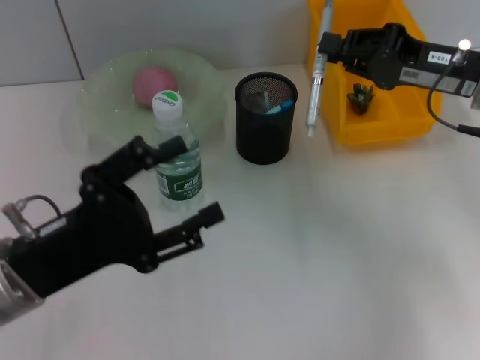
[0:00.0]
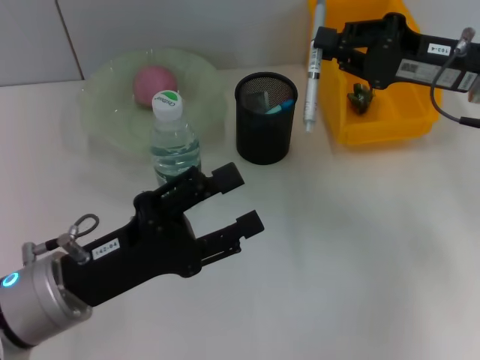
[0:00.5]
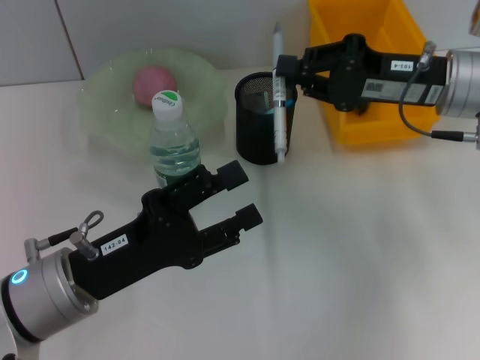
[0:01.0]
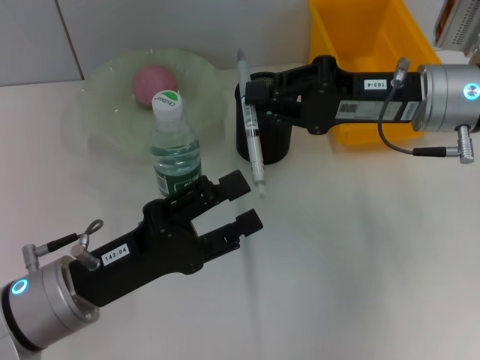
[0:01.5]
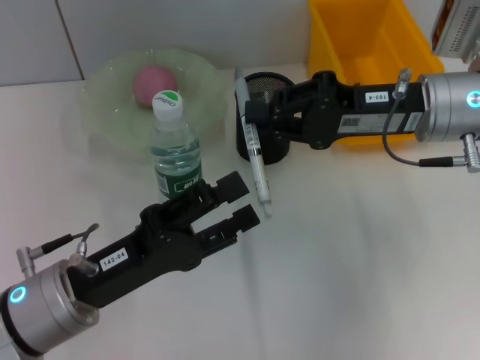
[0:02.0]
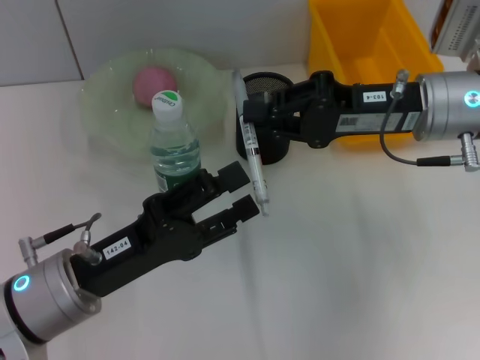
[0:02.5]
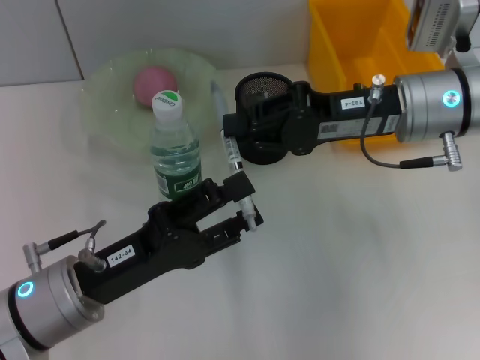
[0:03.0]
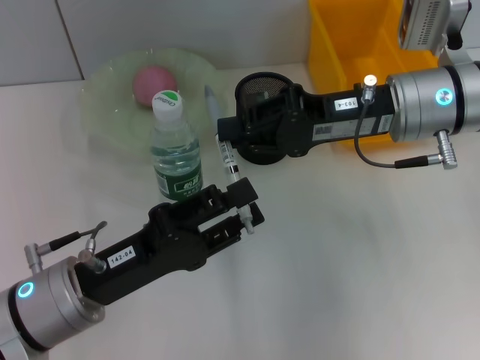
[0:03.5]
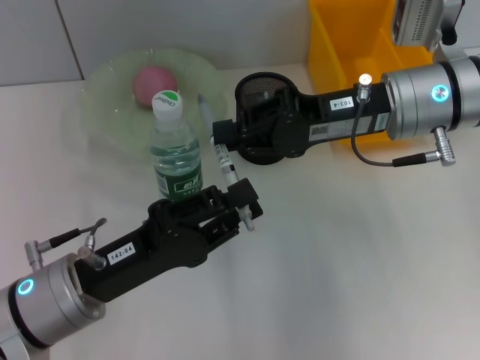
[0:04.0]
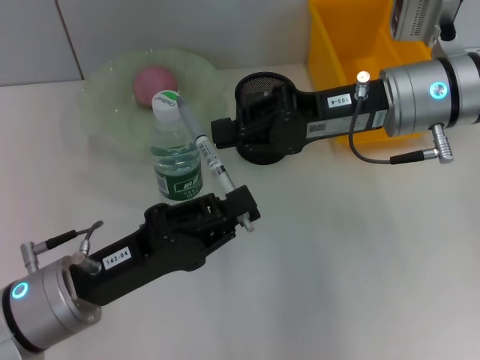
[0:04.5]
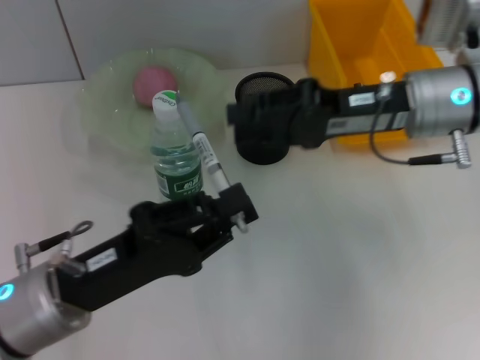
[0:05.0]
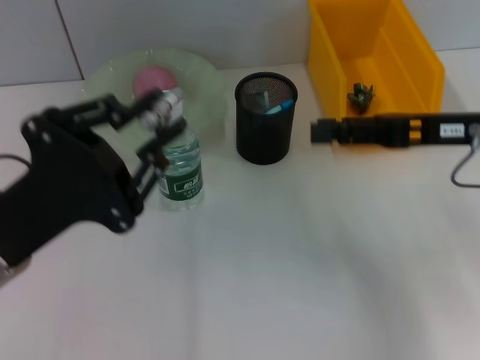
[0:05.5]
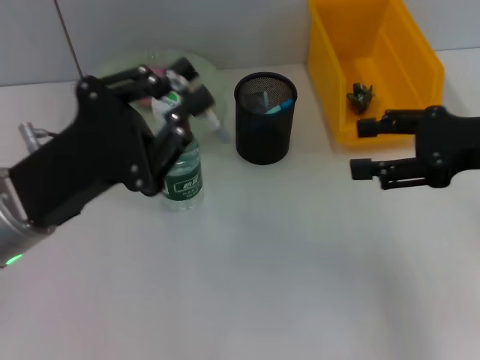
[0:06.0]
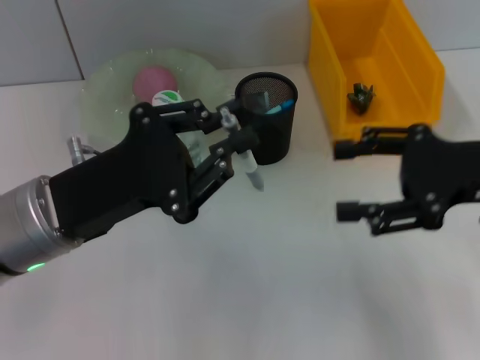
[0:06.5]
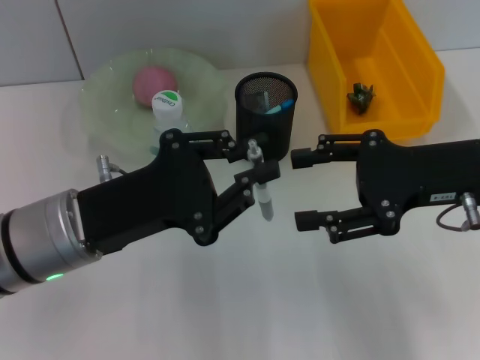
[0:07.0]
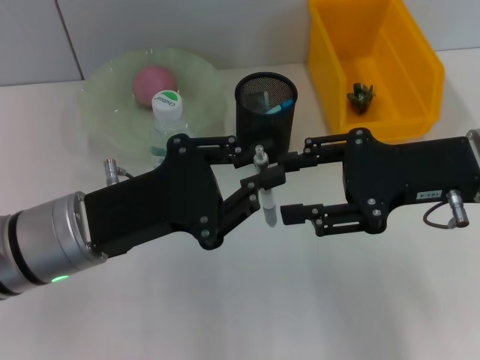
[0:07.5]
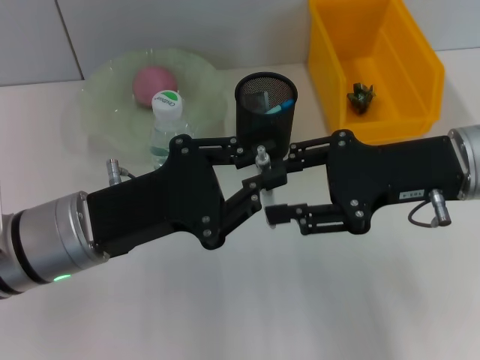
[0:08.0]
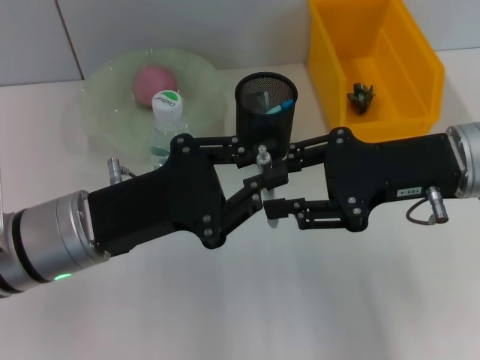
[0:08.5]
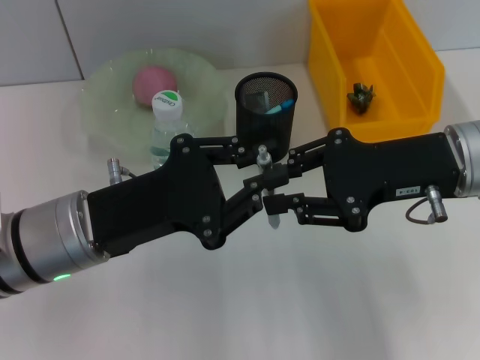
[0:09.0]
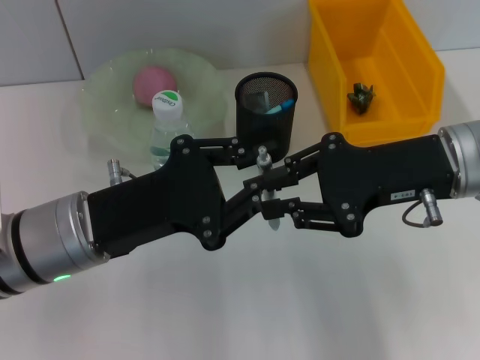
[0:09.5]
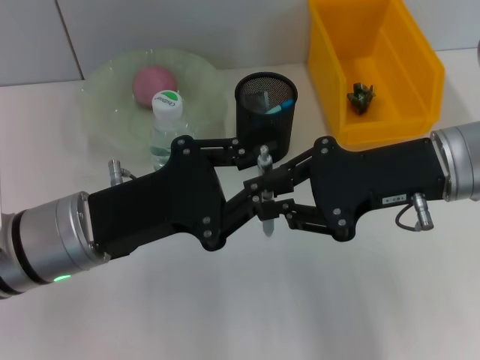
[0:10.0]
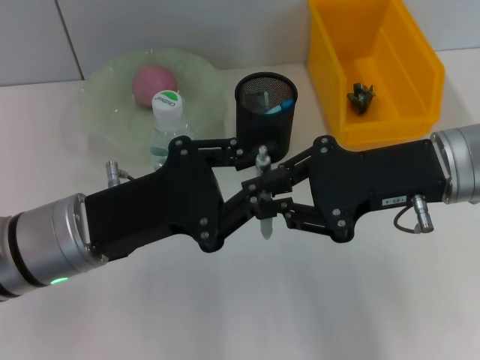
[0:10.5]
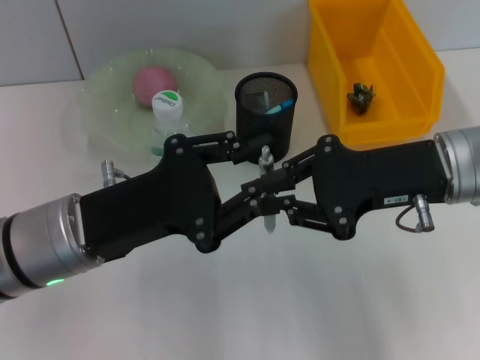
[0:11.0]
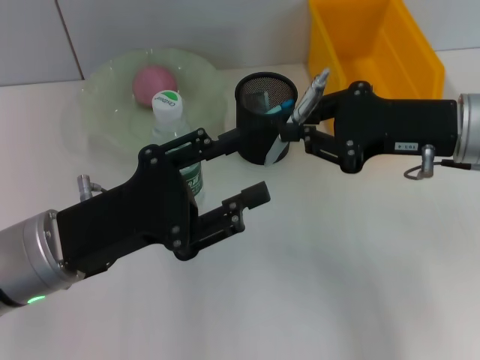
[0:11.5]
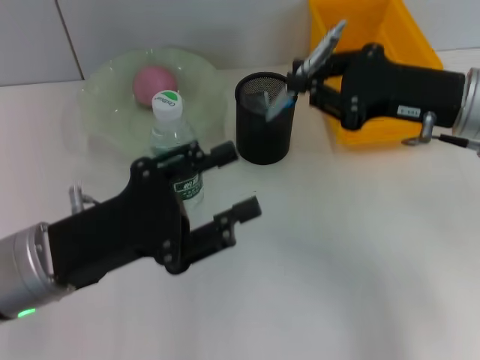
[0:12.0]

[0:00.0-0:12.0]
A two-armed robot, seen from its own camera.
Step, 0:00.0 to 0:04.5: Pass the gray spring-action pen from the right hand to the left hand.
Step, 0:05.0 to 0:11.0: Pass the gray spring-action pen from the left hand to the right hand.
0:00.0 to 0:02.0: The right gripper heads to the left, covering some 5 cm.
0:02.0 to 0:04.0: The left gripper closes.
0:04.0 to 0:06.0: The left gripper shifts roughly 5 cm upward. The right gripper travels to the right and backward by approximately 15 cm, and opens up.
0:06.0 to 0:08.0: The right gripper goes approximately 10 cm to the left.
0:08.0 to 0:10.0: The right gripper closes its fingers.
0:10.0 to 0:12.0: The left gripper opens.

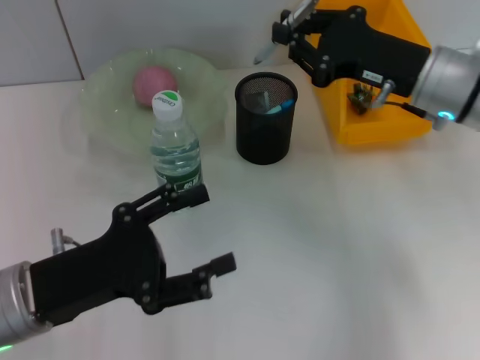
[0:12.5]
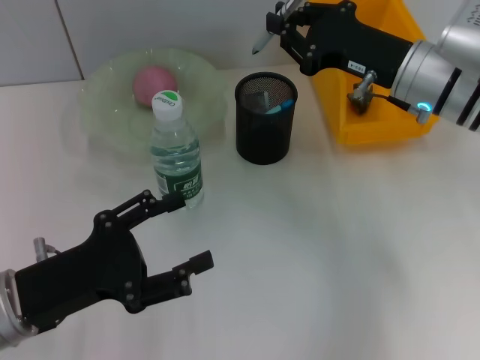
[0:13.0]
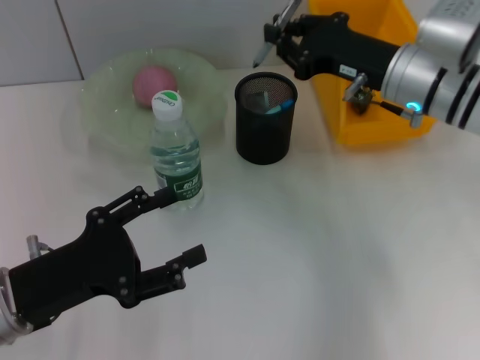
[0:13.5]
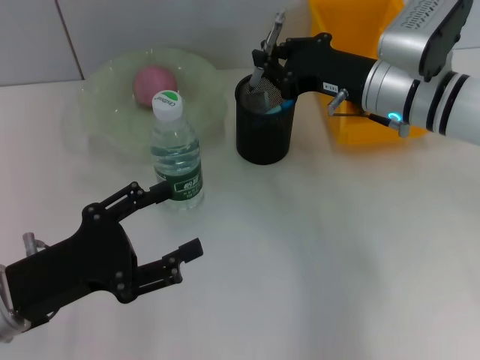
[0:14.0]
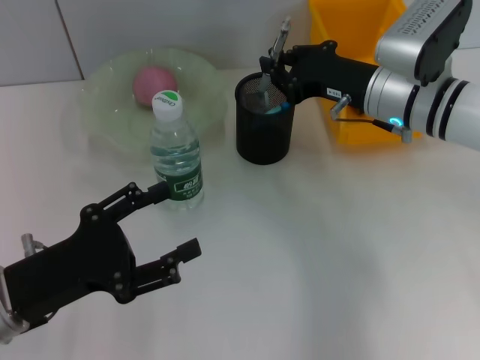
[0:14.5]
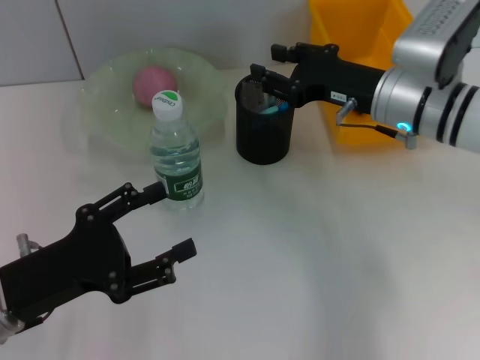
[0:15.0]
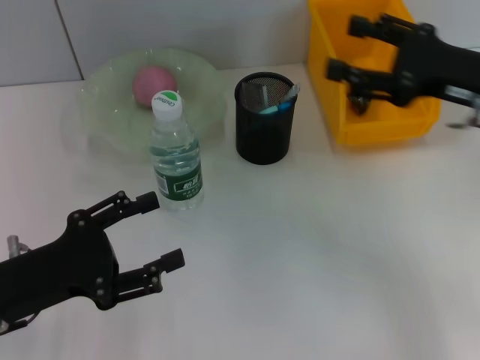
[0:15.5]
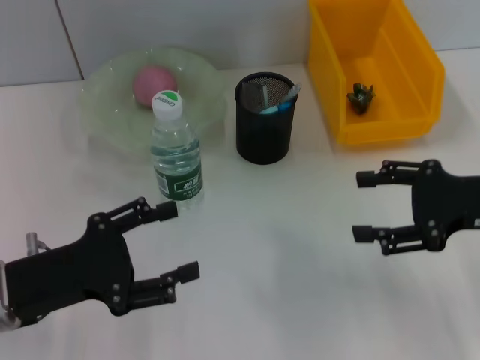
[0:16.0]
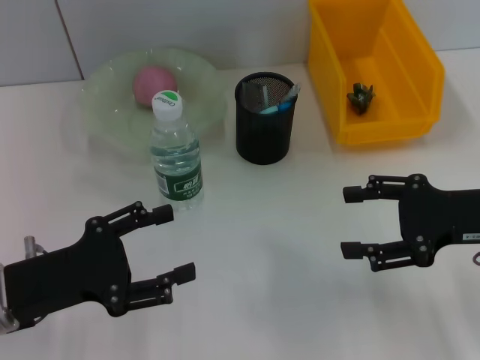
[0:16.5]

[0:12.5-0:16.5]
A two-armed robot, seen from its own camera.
Step, 0:12.5 to 0:15.0: Place the gray spring-action pen into the pen holder with the right hand.
0:12.5 to 0:14.5: The right gripper ends up about 5 cm from where it was.
0:14.5 to 0:16.5: The right gripper is displaced backward and to the right by some 15 cm, and opens.

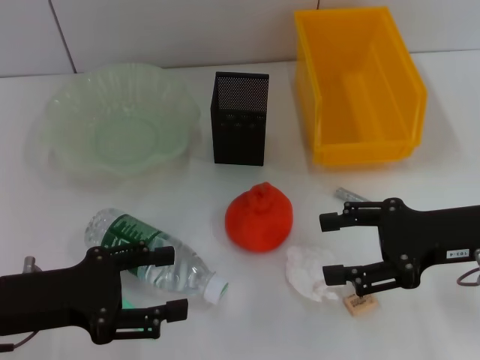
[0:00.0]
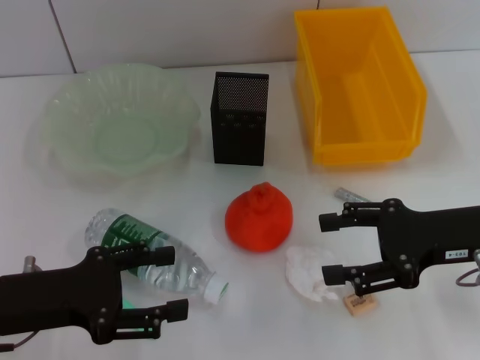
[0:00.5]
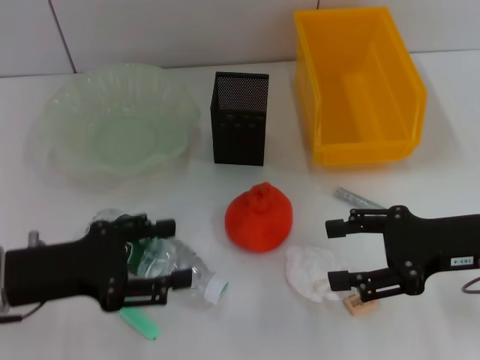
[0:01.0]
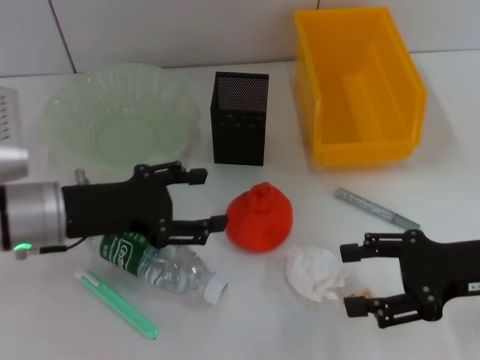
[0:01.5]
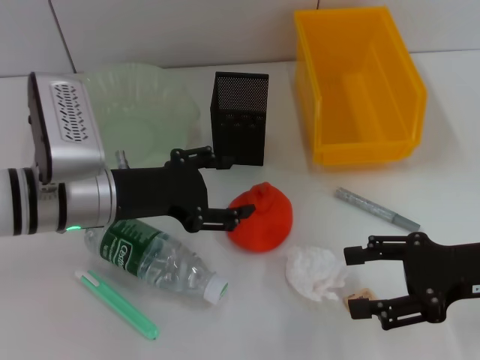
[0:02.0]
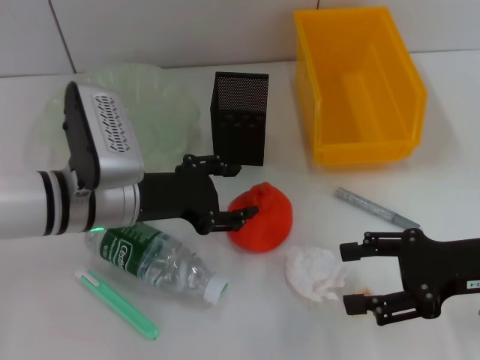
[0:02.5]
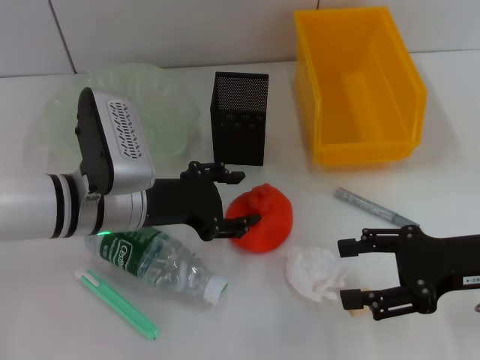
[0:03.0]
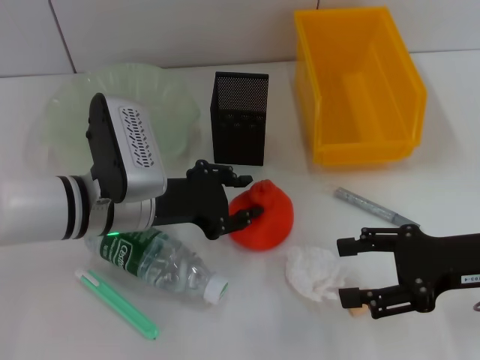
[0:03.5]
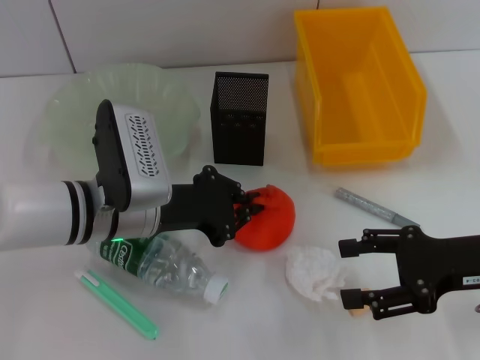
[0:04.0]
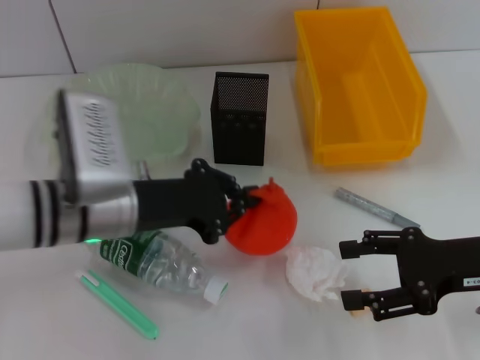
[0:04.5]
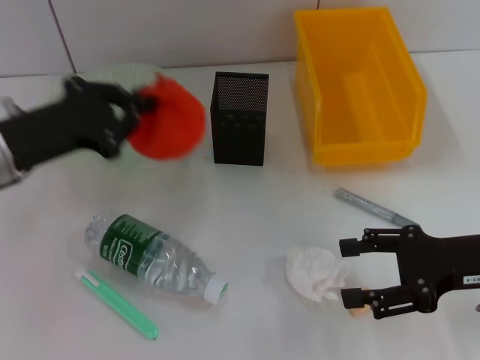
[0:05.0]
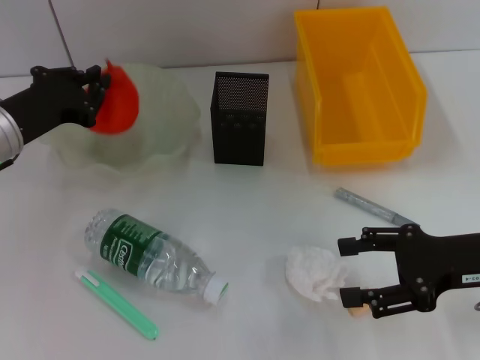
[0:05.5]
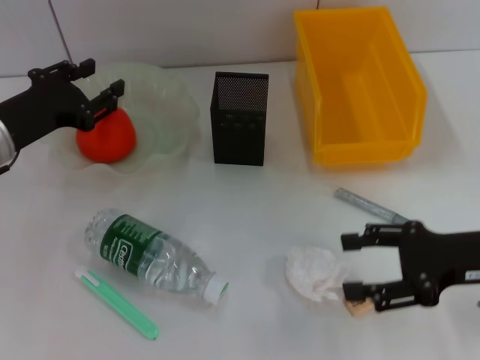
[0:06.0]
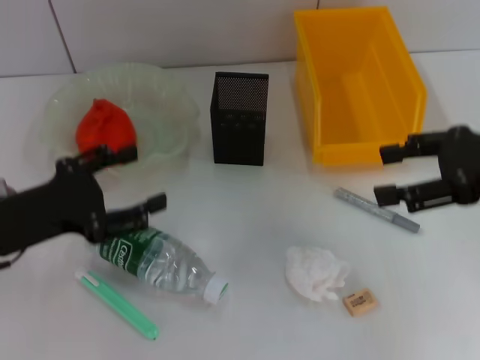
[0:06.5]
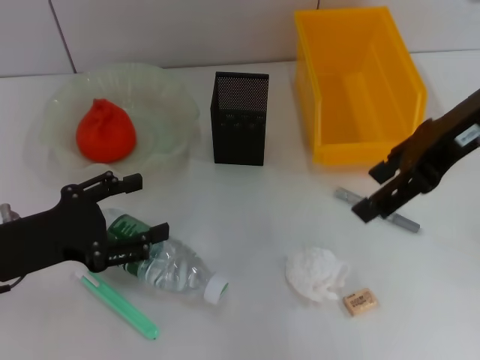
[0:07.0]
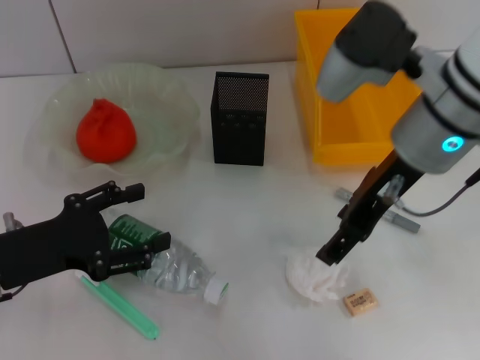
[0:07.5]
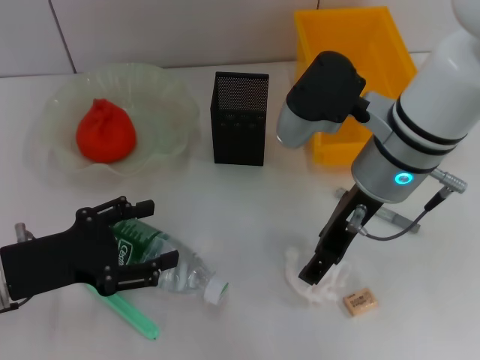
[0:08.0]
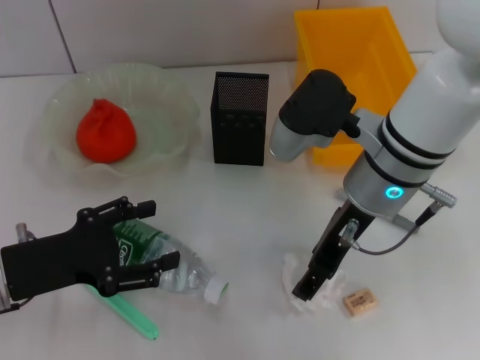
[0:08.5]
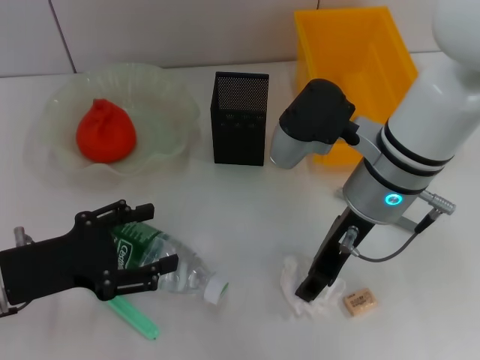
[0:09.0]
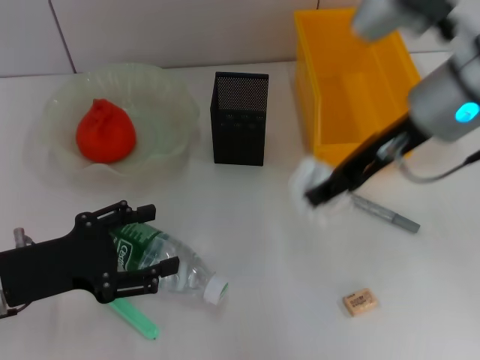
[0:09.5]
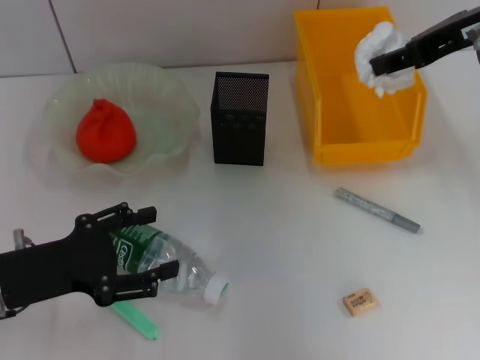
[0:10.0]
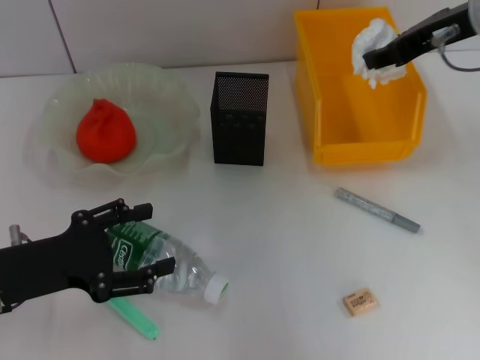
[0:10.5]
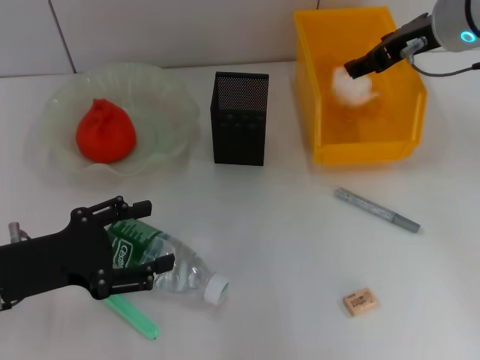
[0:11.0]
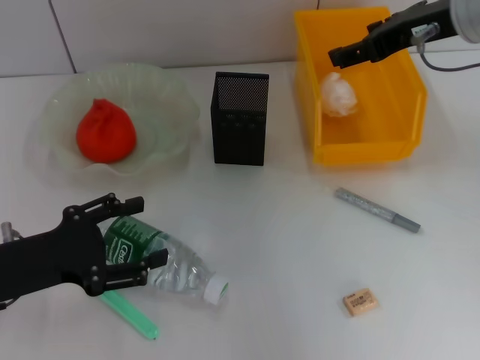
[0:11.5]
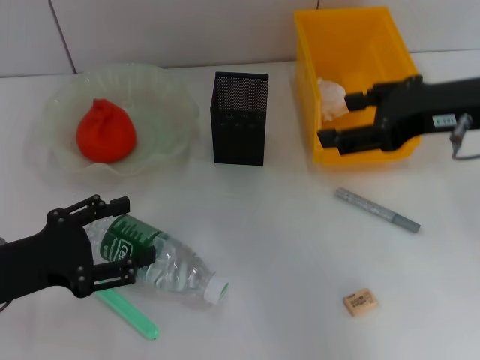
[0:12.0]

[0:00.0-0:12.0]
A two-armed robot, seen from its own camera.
Step, 0:00.0 to 0:04.0: Grab the orange with the left hand.
Step, 0:04.5 to 0:05.5: Place the orange into the fruit bowl with the left hand.
Step, 0:06.0 to 0:09.0: Grab the paper ball with the right hand.
Step, 0:09.5 to 0:11.5: Place the paper ball into the trash can with the right hand.
0:00.0 to 0:02.0: The left gripper goes some 15 cm forward and to the right.
0:02.0 to 0:04.0: The left gripper closes up.
0:04.0 to 0:06.0: The left gripper heads to the left, covering about 10 cm.
0:06.0 to 0:08.0: The left gripper goes roughly 10 cm backward, and opens up. Meanwhile the right gripper is displaced to the left, forward and upward by about 20 cm.
0:08.0 to 0:10.0: The right gripper shifts roughly 15 cm to the right and upward, and closes its fingers.
0:10.0 to 0:12.0: The right gripper heads backward and downward, covering roughly 10 cm, and opens up.
